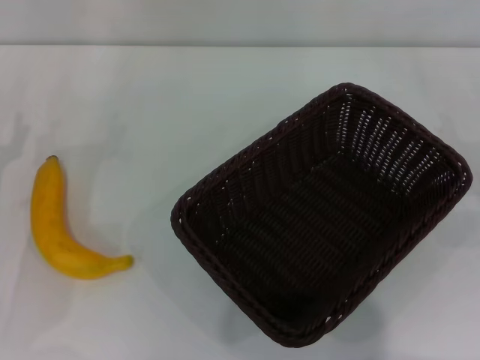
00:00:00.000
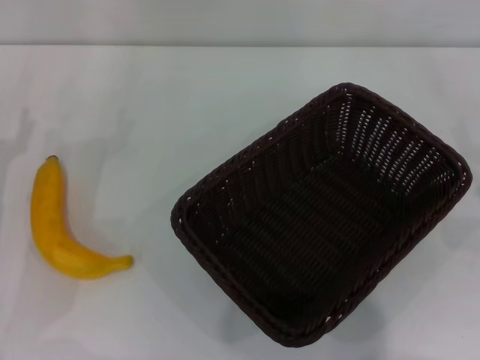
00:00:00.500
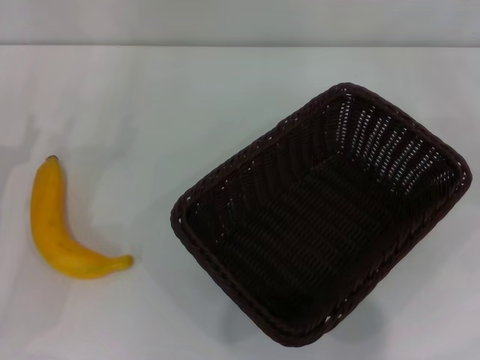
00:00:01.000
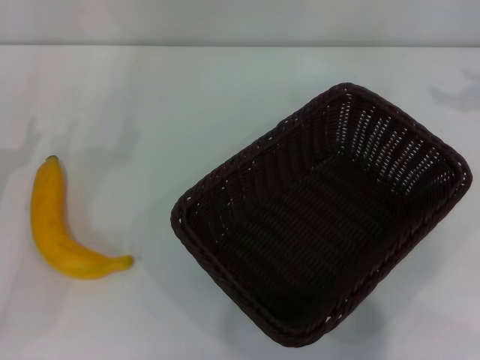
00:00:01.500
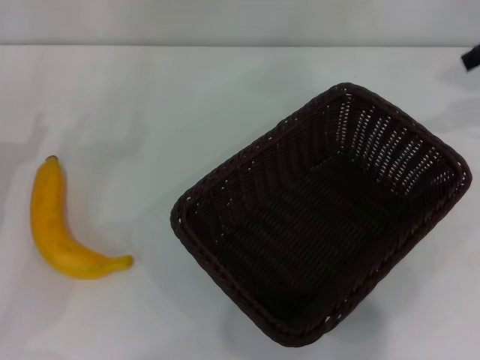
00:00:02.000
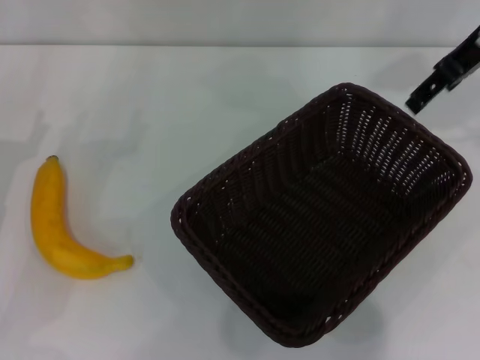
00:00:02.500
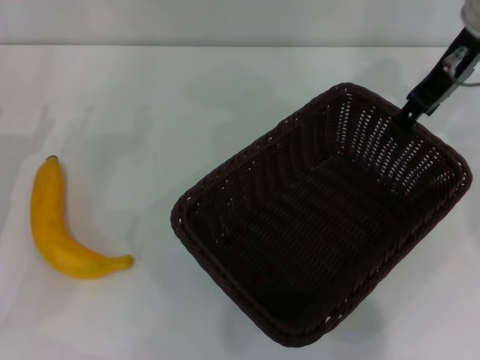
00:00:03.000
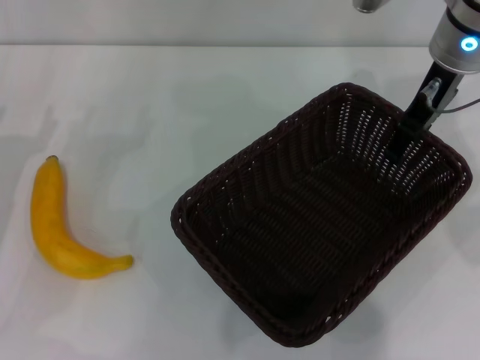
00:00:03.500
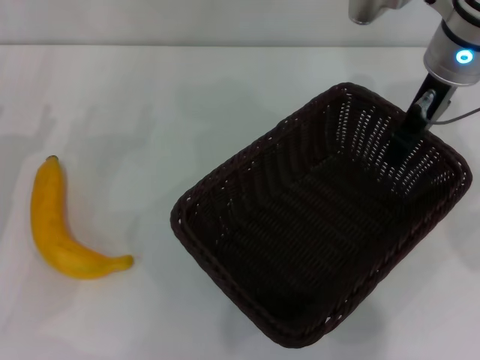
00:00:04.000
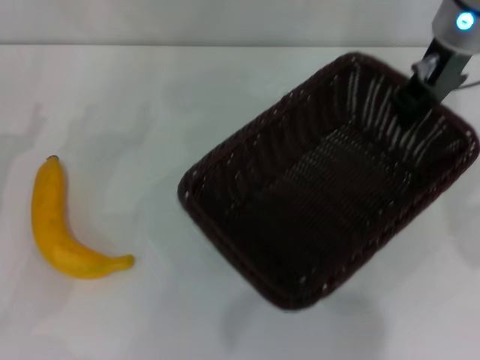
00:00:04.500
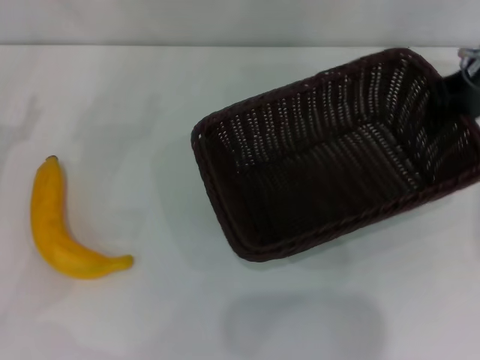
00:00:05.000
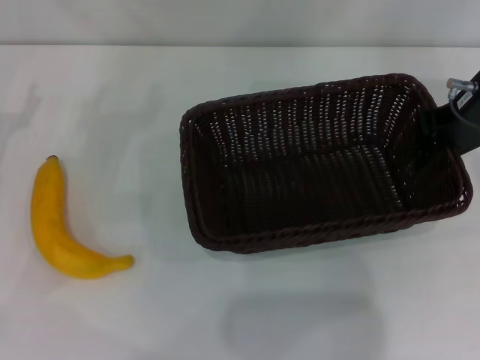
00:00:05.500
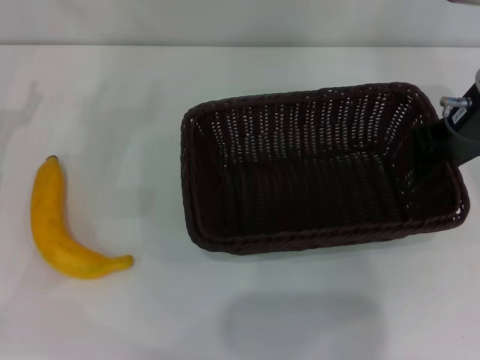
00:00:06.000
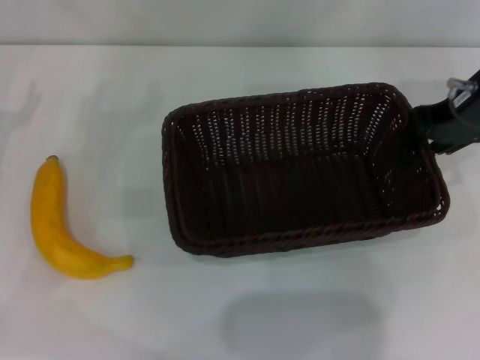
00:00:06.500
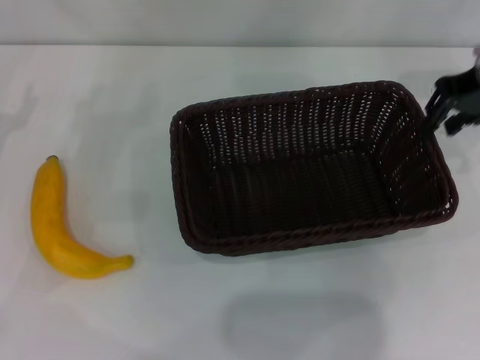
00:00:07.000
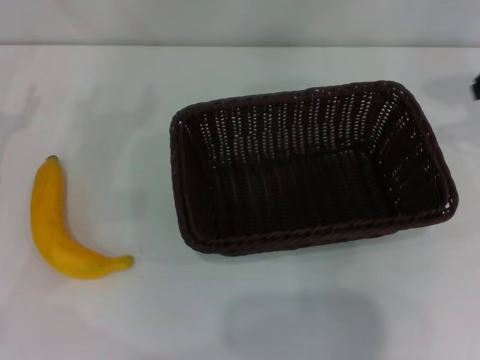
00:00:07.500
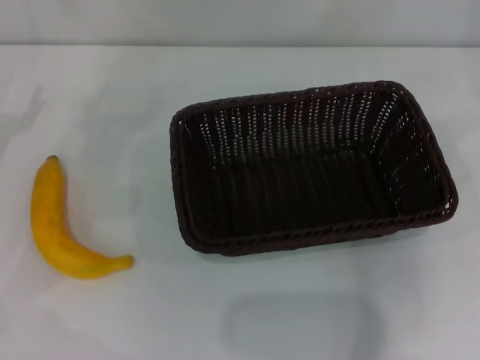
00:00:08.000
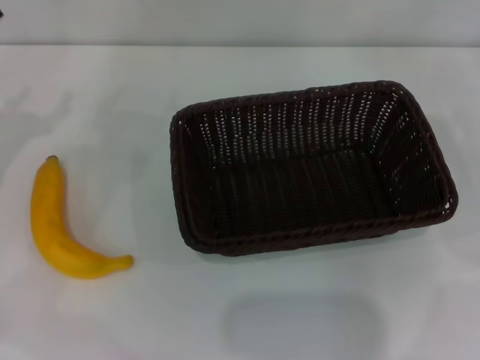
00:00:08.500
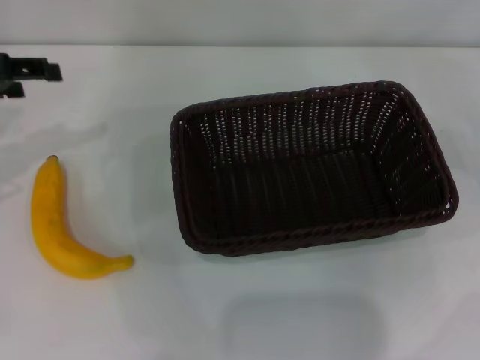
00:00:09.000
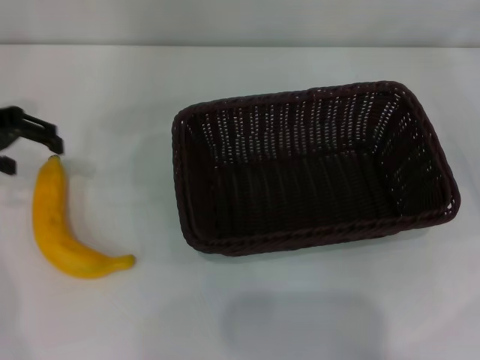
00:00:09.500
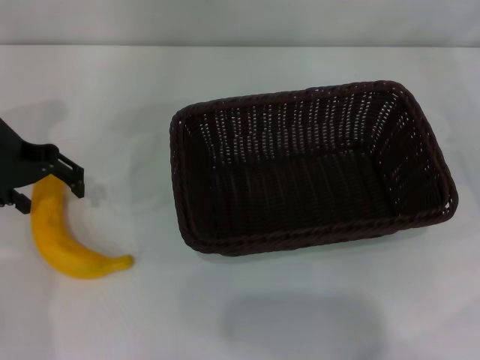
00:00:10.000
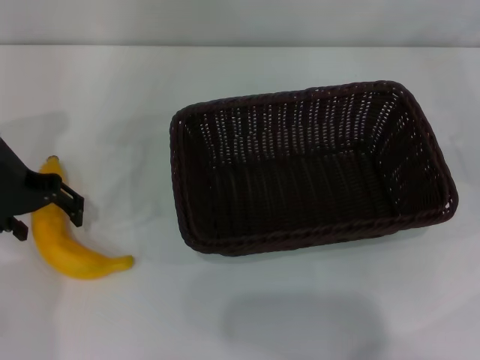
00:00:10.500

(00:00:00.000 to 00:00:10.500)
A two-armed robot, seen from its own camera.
Step, 00:00:00.000 - 00:00:04.000: Pick up the dark basket with the right gripper.
Step, 00:00:04.500 - 00:00:07.000: Place the dark basket in the center of view with the right gripper.
00:00:00.000 - 00:00:02.000: The right gripper travels upward and forward by approximately 25 cm.
00:00:02.000 - 00:00:04.000: The right gripper shifts roughly 15 cm to the left and downward, and closes up.
00:00:04.000 - 00:00:06.500: The right gripper travels to the right by roughly 5 cm.
00:00:06.500 - 00:00:08.500: The right gripper moves to the right, some 20 cm, and opens up.
00:00:08.500 - 00:00:10.500: The left gripper shifts some 10 cm to the right and forward.

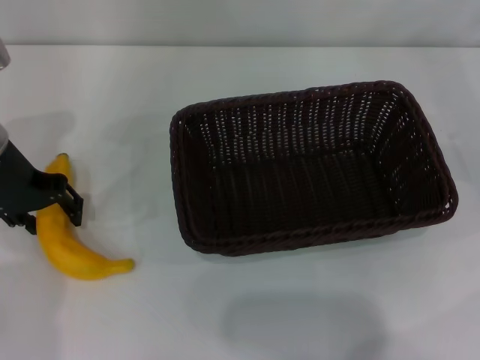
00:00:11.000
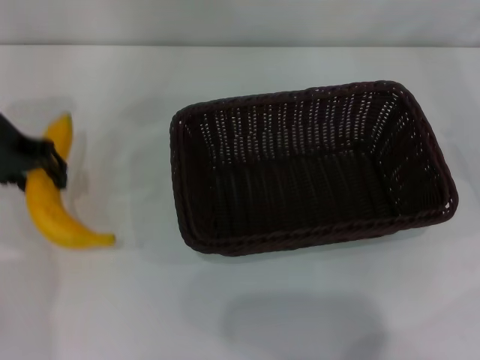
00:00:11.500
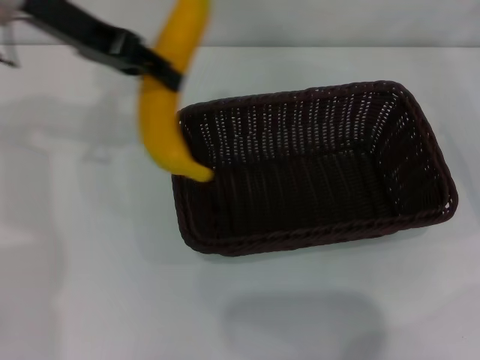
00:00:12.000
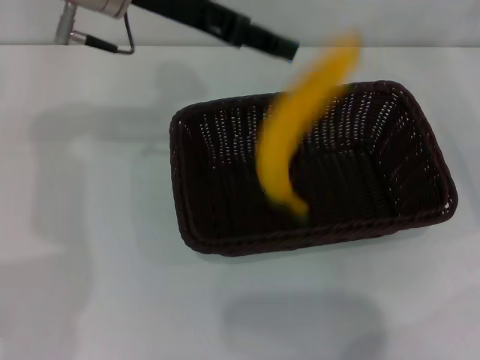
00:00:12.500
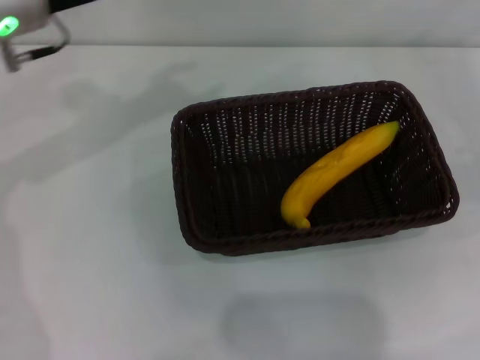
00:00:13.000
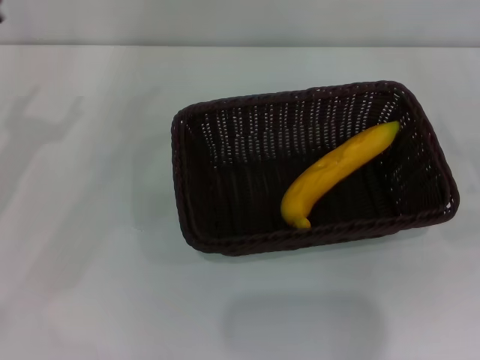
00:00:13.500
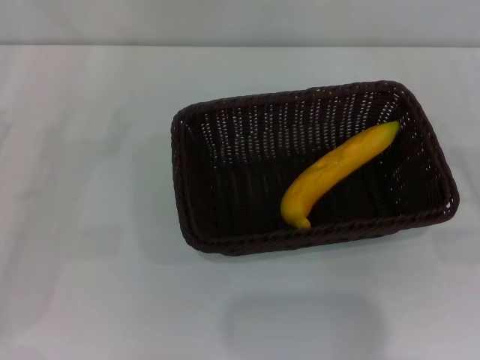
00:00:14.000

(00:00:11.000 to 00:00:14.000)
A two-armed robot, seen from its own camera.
Step, 00:00:11.500 - 00:00:12.500: Place the banana into the dark basket with the left gripper.
00:00:11.000 - 00:00:12.500: The left gripper is displaced to the right and upward by about 15 cm, and closes its fingers.
00:00:12.500 - 00:00:14.000: The left gripper is displaced to the left, downward and backward by approximately 30 cm, and opens its fingers. Meanwhile the right gripper is displaced backward and downward by about 10 cm.
